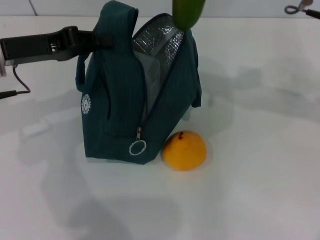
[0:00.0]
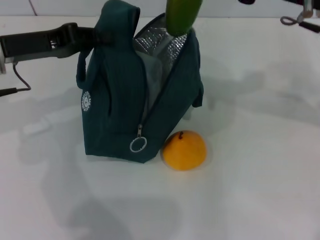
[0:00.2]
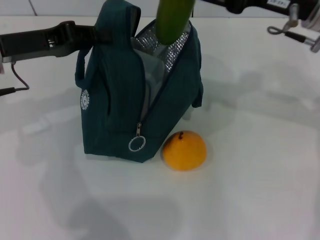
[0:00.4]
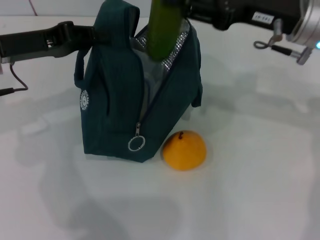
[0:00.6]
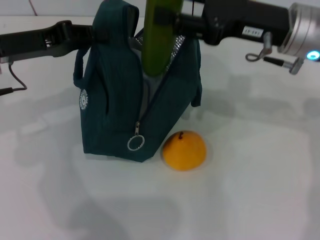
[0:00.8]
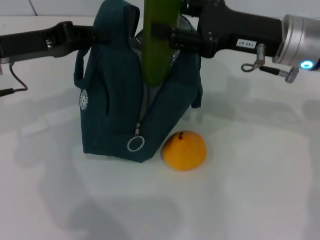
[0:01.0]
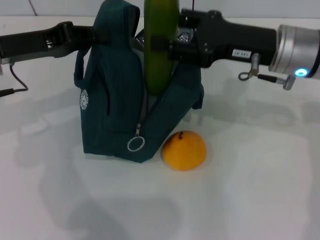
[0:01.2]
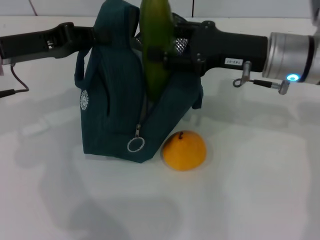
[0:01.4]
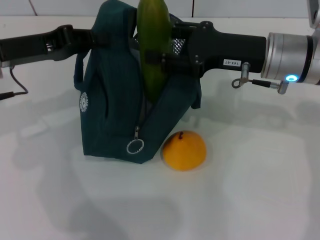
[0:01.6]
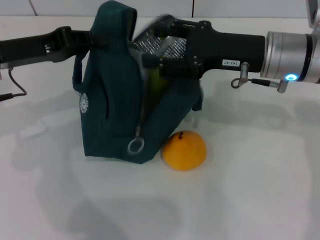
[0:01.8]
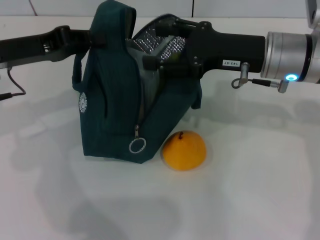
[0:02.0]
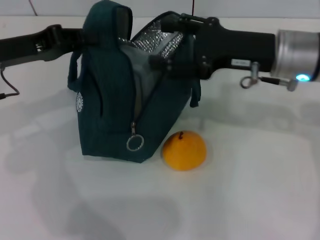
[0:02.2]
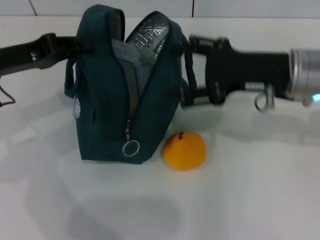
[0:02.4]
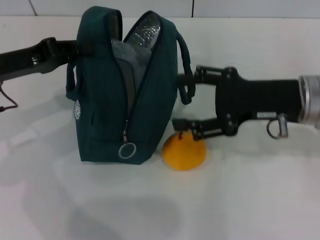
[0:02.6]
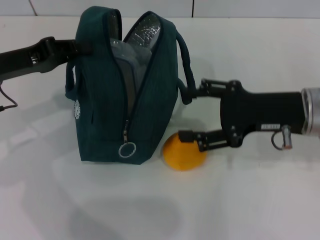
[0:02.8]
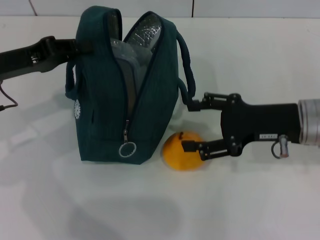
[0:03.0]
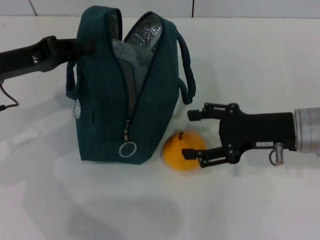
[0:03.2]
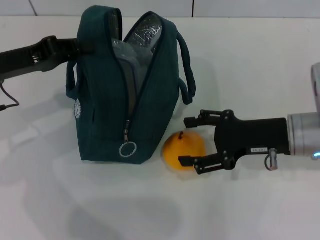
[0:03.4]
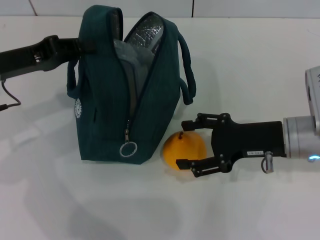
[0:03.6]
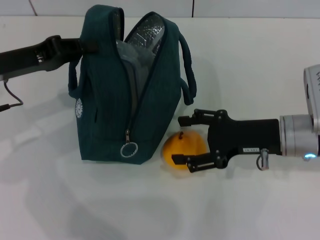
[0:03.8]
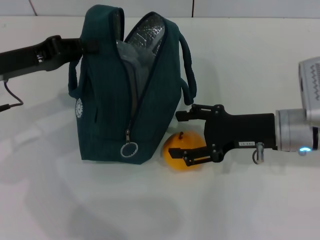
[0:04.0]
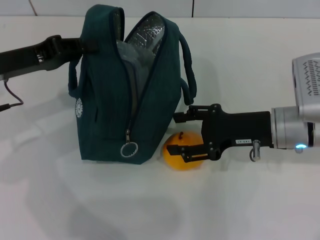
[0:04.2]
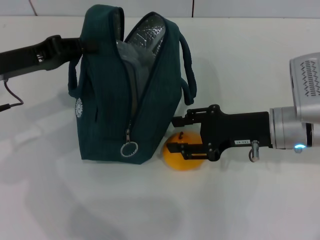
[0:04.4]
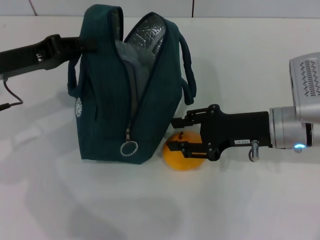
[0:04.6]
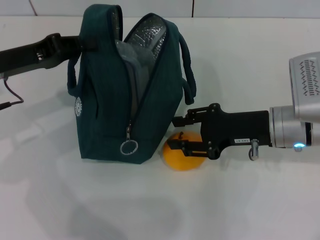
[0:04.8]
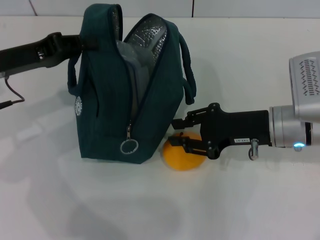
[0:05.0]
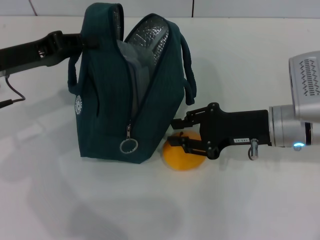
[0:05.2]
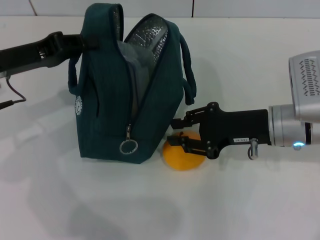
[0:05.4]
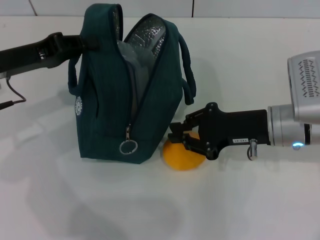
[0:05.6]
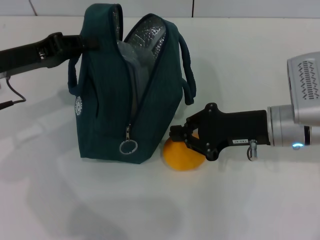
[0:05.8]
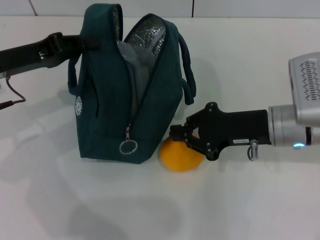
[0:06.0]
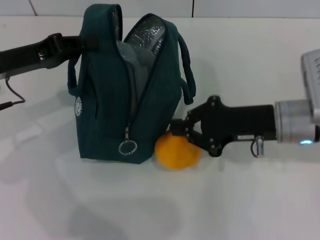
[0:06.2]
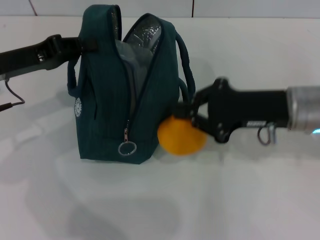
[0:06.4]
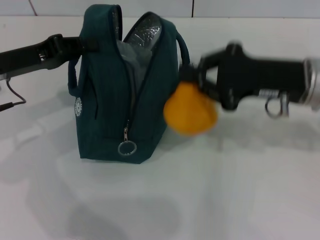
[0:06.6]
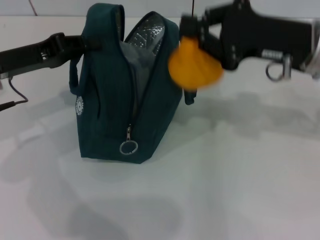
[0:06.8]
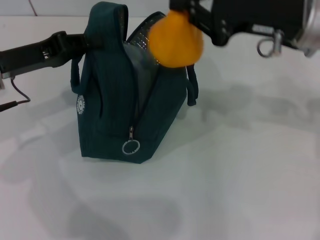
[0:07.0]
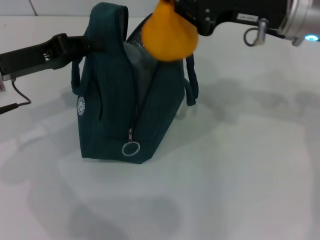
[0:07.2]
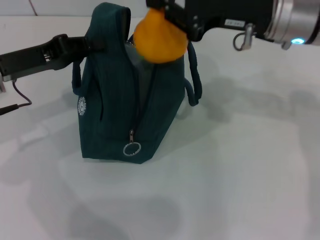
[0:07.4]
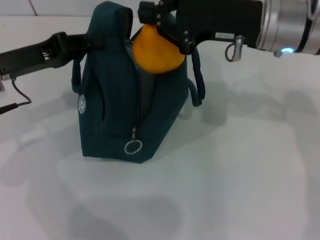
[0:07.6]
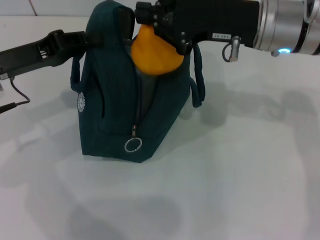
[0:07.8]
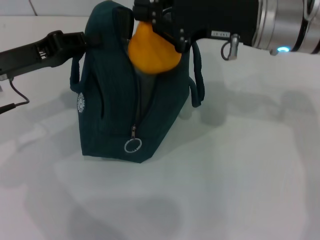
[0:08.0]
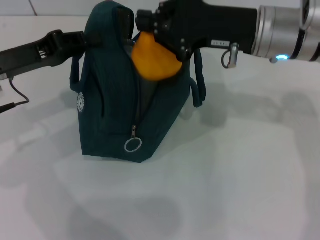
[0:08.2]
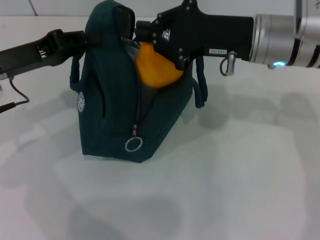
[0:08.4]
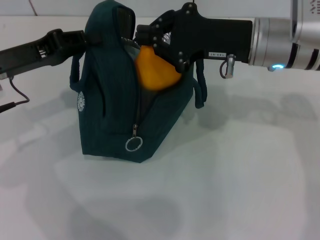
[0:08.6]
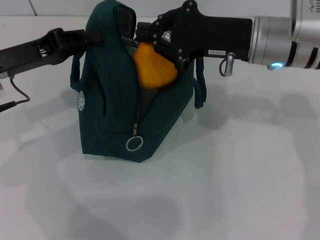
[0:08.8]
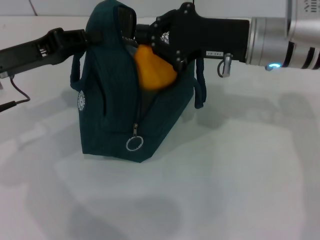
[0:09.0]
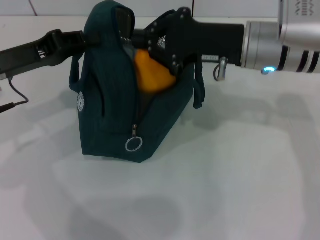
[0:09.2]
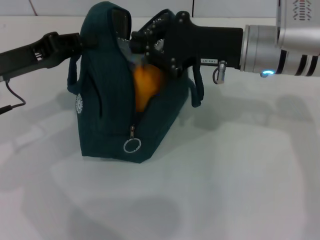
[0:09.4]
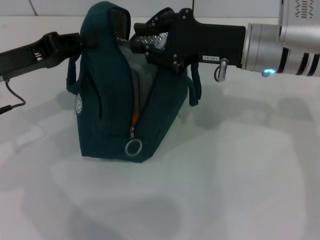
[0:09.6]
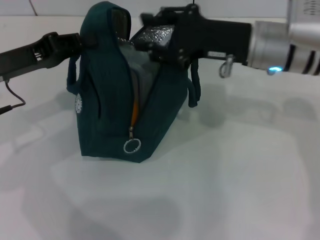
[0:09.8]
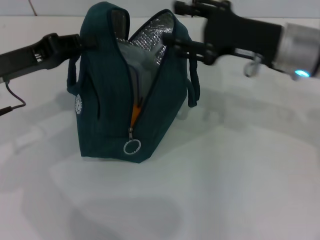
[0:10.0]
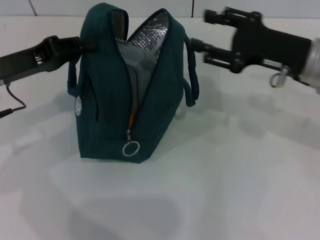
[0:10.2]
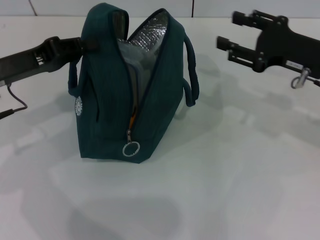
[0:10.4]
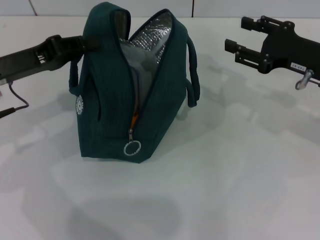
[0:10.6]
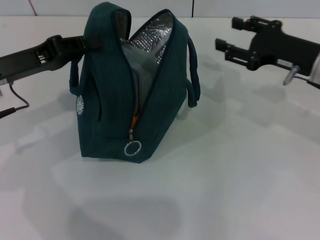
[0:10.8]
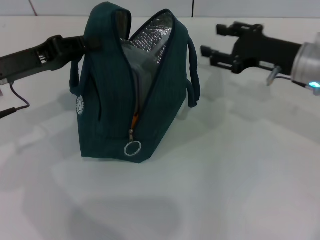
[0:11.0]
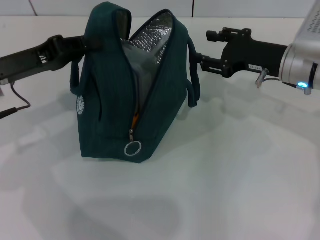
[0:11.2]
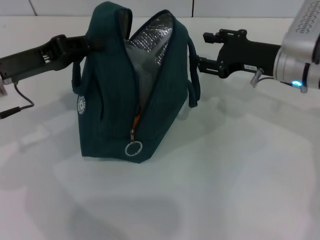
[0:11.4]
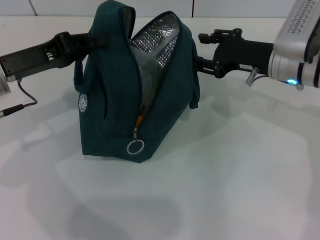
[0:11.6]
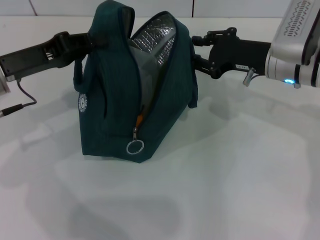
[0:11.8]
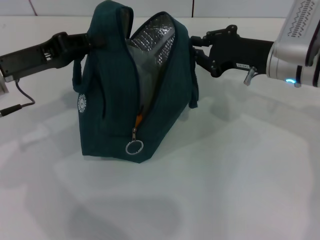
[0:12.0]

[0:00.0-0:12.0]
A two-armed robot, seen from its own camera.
Step, 0:00.0 to 0:02.0: Put the cucumber into the lunch bag with your right hand.
Step, 0:02.2 to 0:05.8: Grab the pear with your right hand.
0:00.0 to 0:01.6: The right gripper travels downward by approximately 10 cm.
0:01.6 to 0:03.0: The right gripper heads backward, covering about 5 cm.
0:03.0 to 0:04.4: The grippers stay close to where they were, moving slightly.
0:04.4 to 0:06.0: The right gripper closes up.
0:06.0 to 0:07.6: The right gripper goes approximately 10 cm upward and forward.
0:07.6 to 0:09.0: The grippers make only small movements.
0:09.0 to 0:10.4: The right gripper travels to the right by about 10 cm, and opens its fingers.
0:10.4 to 0:12.0: The right gripper travels to the left by some 5 cm, and closes.

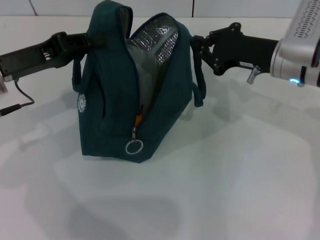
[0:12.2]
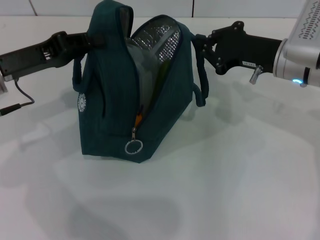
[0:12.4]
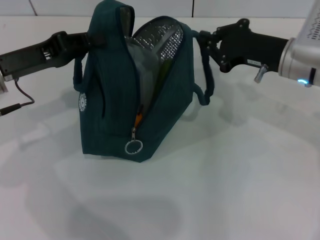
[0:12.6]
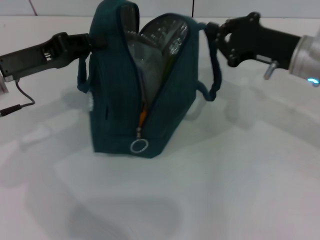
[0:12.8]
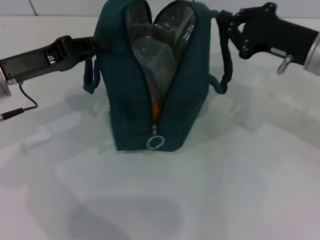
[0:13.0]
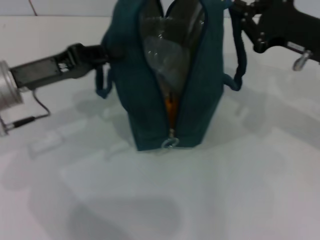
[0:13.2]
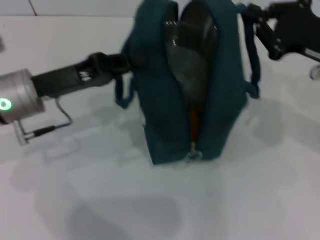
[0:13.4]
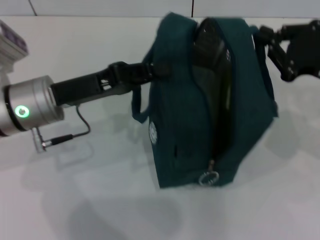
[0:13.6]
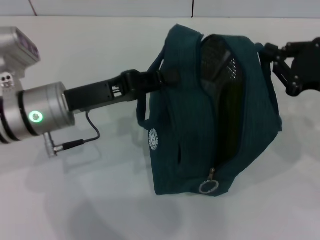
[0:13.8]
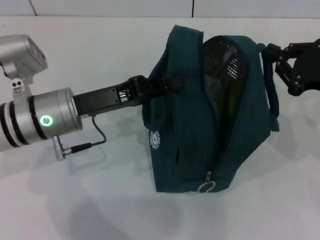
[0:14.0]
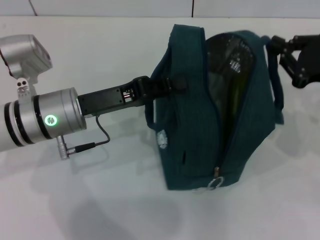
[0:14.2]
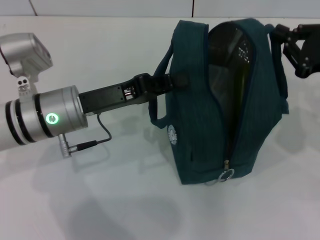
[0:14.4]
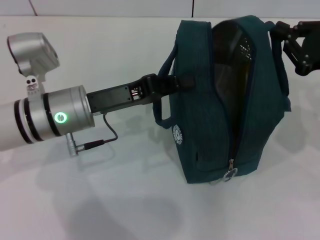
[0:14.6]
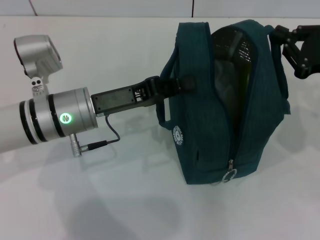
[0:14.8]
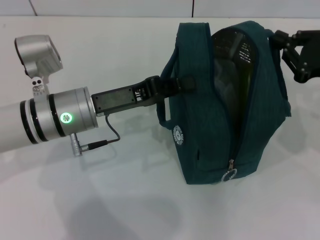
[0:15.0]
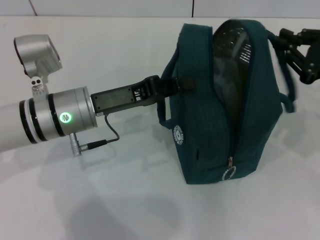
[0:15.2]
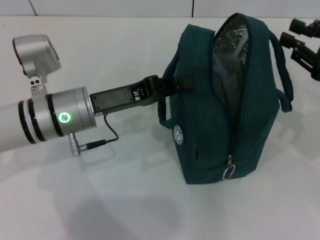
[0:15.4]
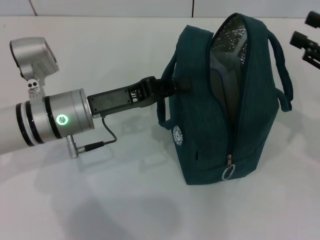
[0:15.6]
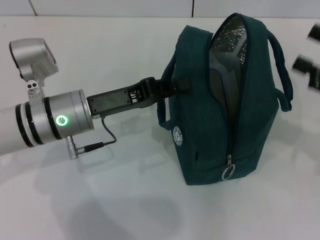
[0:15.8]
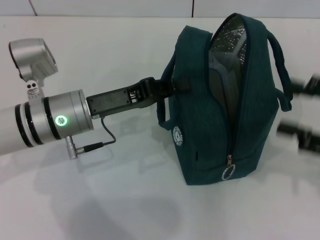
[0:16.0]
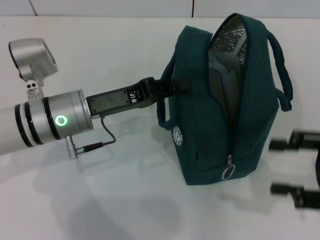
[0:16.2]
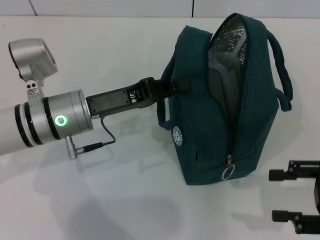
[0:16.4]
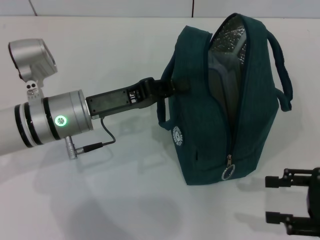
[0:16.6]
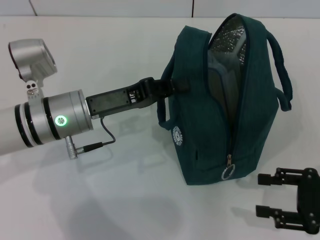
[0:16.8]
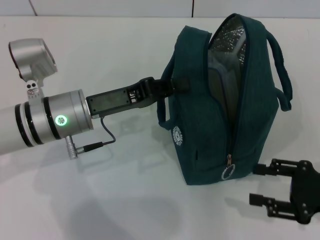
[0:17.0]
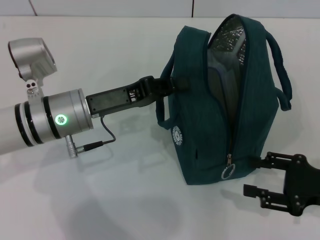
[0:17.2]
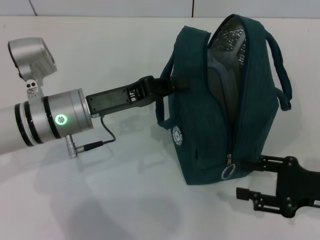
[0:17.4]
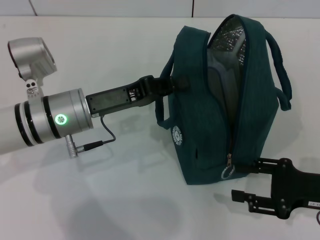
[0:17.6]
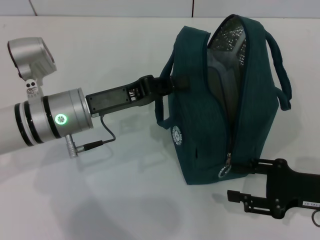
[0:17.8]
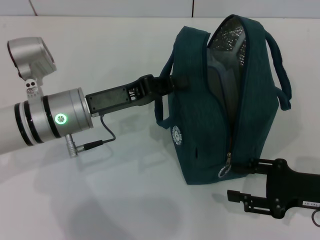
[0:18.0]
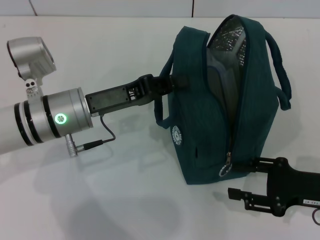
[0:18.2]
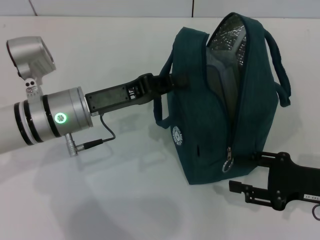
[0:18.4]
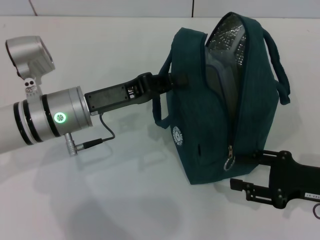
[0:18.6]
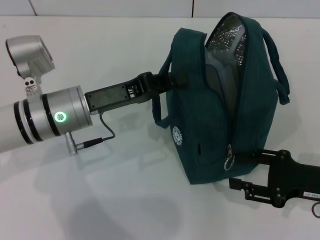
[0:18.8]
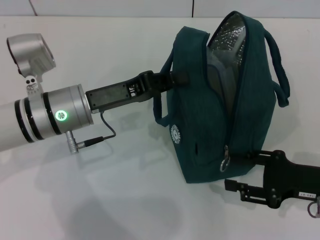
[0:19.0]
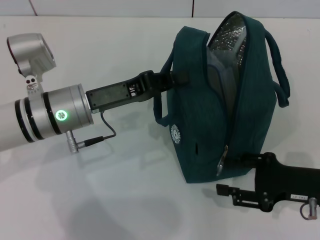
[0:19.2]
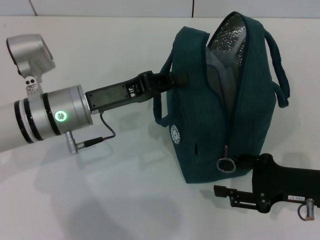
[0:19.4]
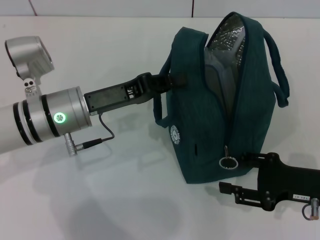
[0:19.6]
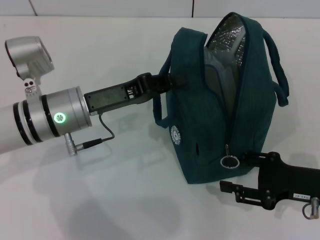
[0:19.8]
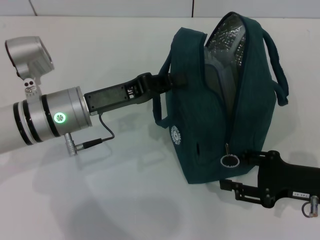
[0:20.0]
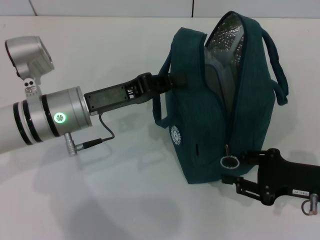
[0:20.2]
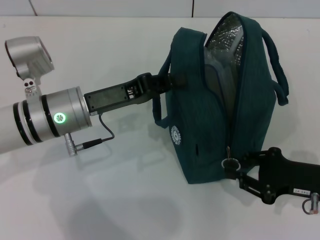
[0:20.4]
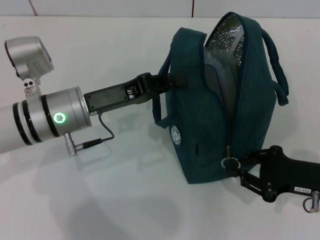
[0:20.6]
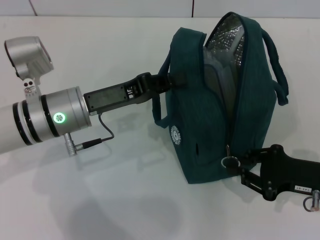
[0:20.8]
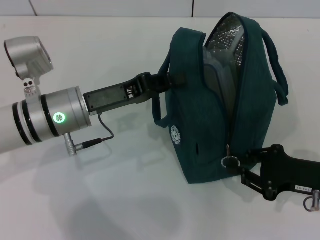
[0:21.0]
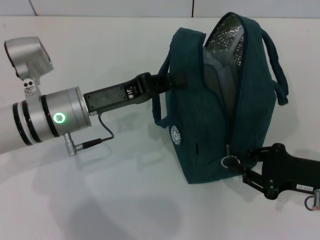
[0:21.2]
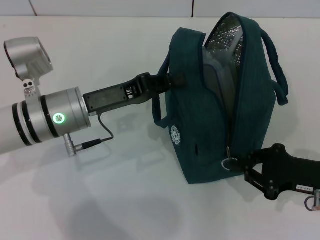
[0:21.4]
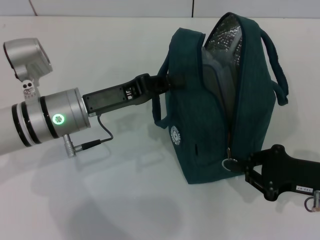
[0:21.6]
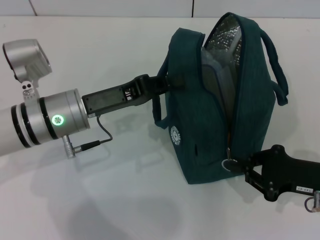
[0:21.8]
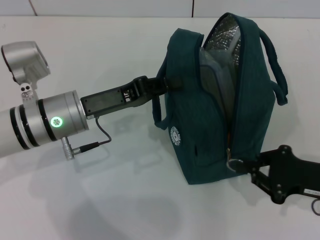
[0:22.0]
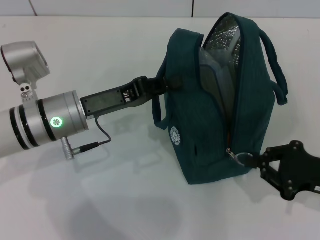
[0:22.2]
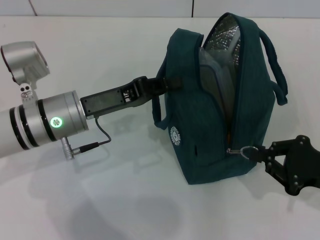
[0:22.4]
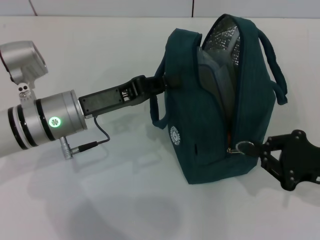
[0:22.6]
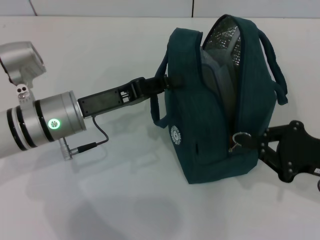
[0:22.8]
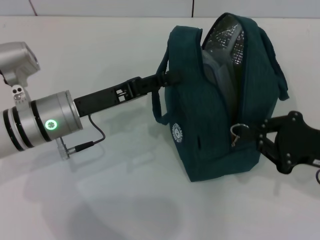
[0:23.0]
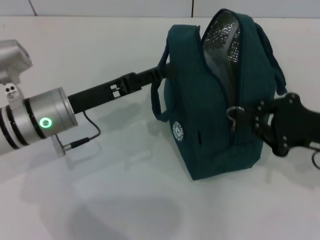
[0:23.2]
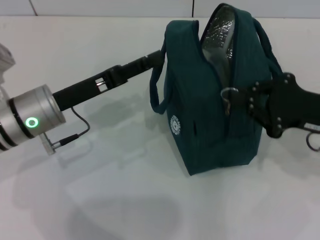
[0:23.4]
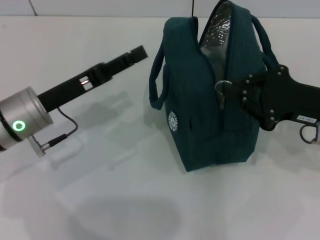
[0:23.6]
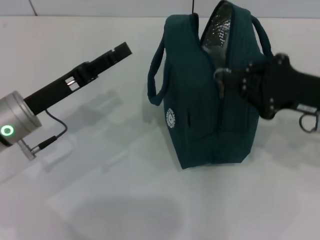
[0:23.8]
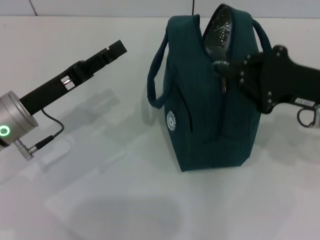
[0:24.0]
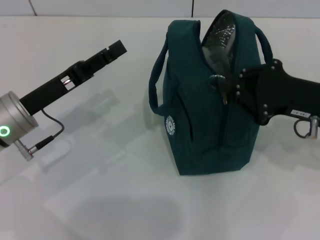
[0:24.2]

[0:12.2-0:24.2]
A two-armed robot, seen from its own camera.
Step, 0:12.2 to 0:15.2: Hold the lunch bag with your right hand.
0:12.2 to 0:13.8: The right gripper heads to the right and backward, covering about 15 cm. The left gripper heads to the right, covering some 10 cm.
0:15.2 to 0:16.6: The right gripper heads backward and downward, covering approximately 10 cm, and opens up.
0:16.6 to 0:18.2: The right gripper moves approximately 5 cm.
0:18.2 to 0:19.8: There are only small adjustments of the grippers.
0:19.8 to 0:21.2: The right gripper closes.
0:21.2 to 0:22.6: The grippers make only small movements.
0:22.6 to 0:24.2: The right gripper heads forward and upward, covering roughly 10 cm. Meanwhile the left gripper is displaced to the left by approximately 5 cm, and opens up.
